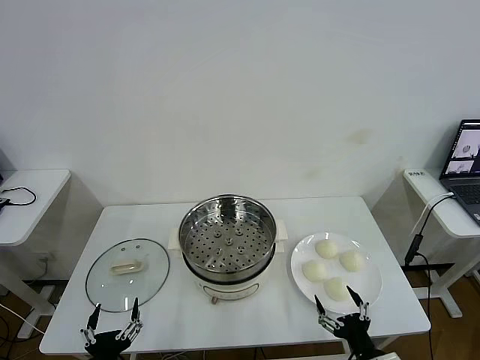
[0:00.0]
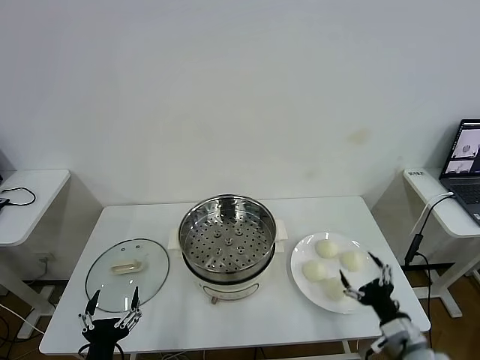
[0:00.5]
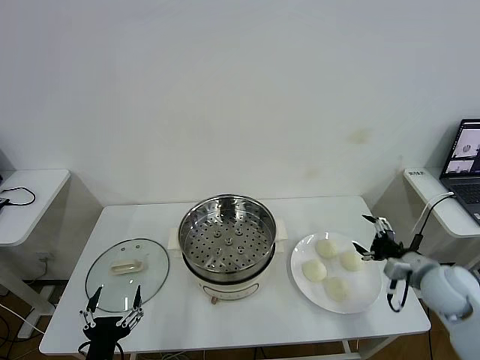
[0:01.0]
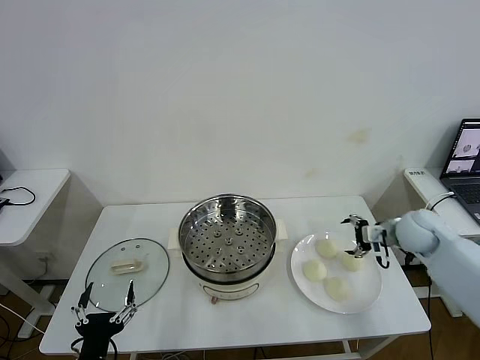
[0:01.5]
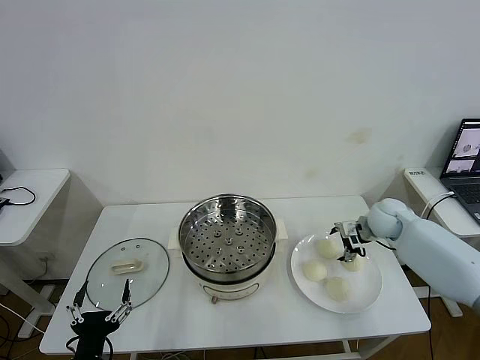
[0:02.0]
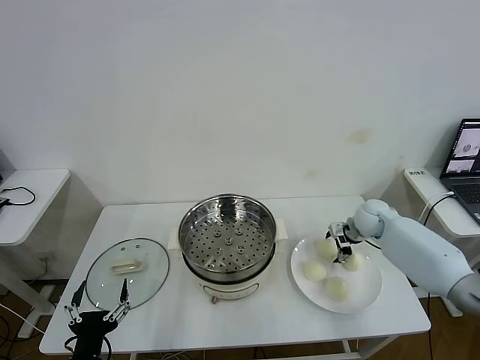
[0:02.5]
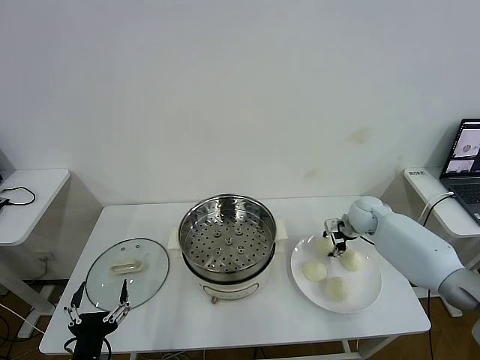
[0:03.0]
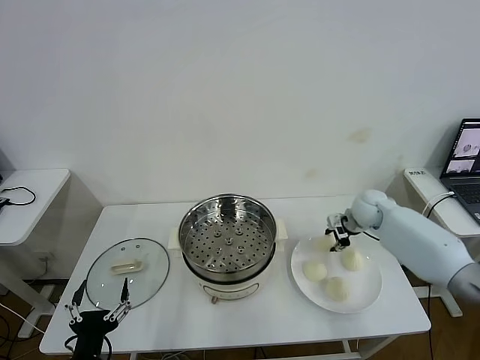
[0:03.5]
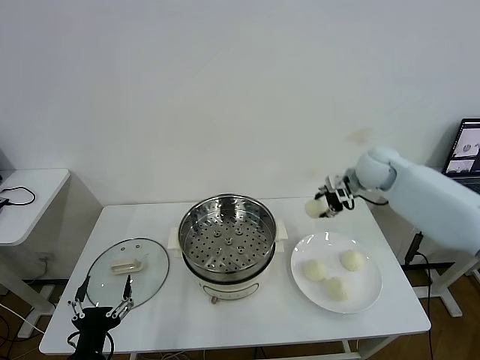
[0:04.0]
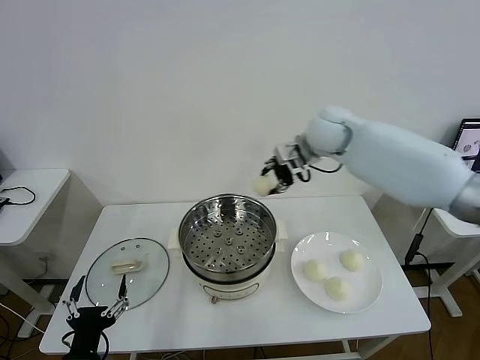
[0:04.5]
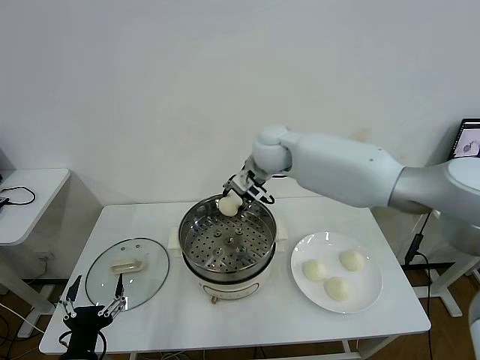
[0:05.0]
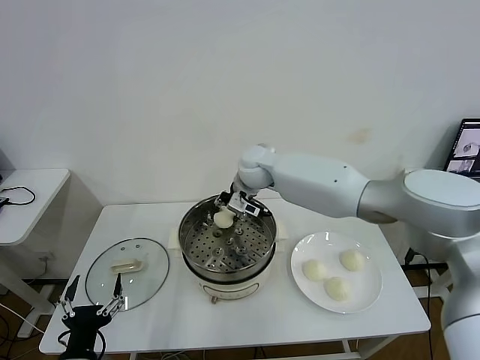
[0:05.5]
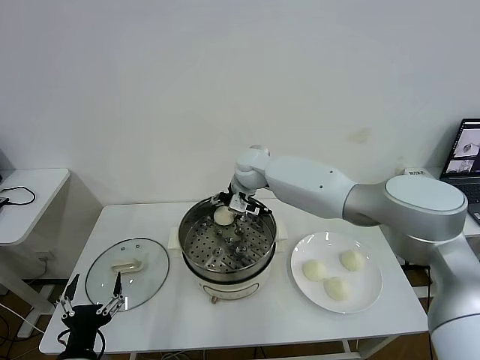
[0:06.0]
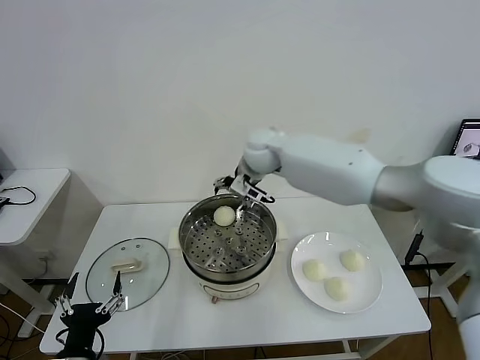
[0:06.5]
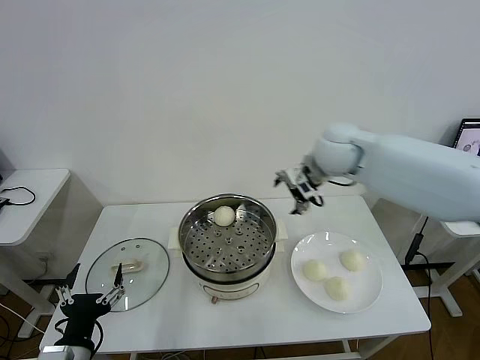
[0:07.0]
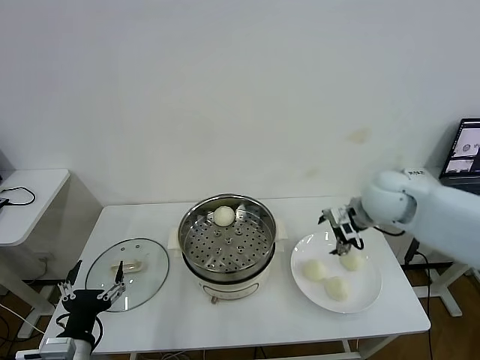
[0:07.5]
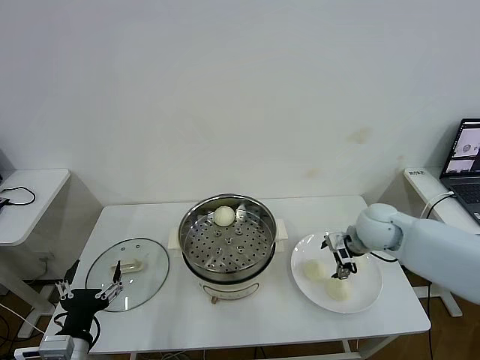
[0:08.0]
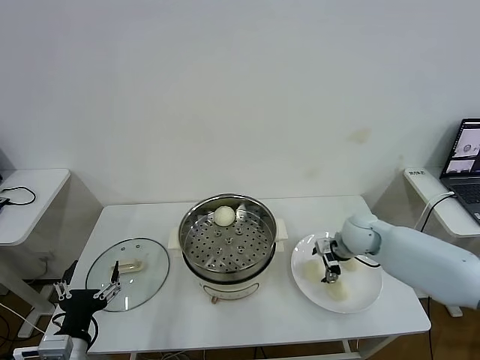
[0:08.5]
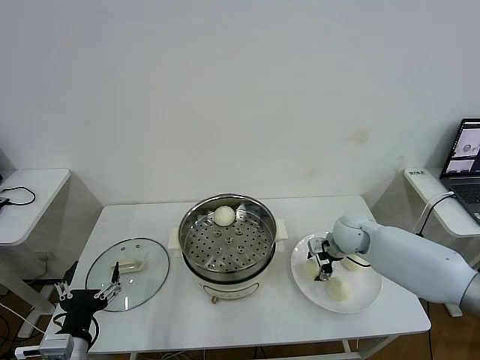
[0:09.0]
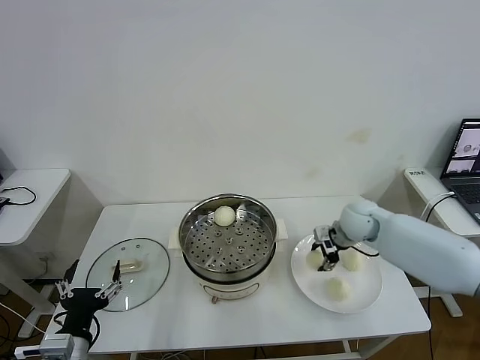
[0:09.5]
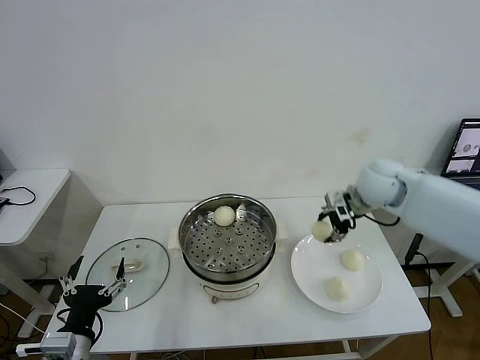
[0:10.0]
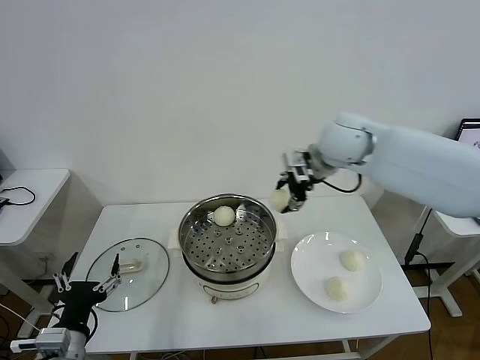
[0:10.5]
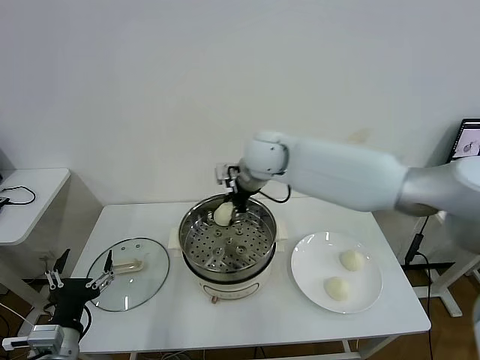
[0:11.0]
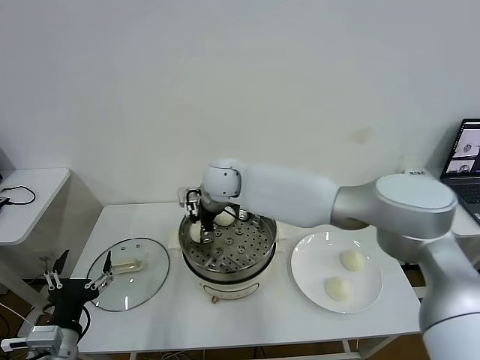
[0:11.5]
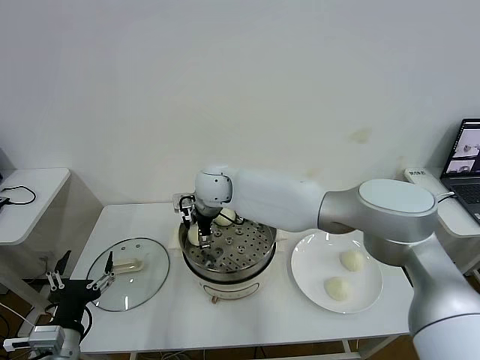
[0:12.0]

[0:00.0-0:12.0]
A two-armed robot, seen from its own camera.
Task of the whole recording: take steamed baozi put them in steamer then cover it.
Step, 0:00.0 to 0:02.5: Grasp the baozi in the plate with right gripper.
Step, 0:03.5 to 0:06.0: Place the baozi on the steamer with right gripper.
Step, 0:06.5 to 0:09.0: Grasp the baozi in the plate with right gripper.
Step, 0:09.5 to 0:12.0: Place the baozi on the steamer with right gripper.
0:02.0 to 0:04.0: The right gripper shifts roughly 15 cm upward and to the left, and closes its fingers.
0:04.0 to 0:06.0: The right gripper travels to the left by some 30 cm, and opens.
0:06.0 to 0:08.0: The right gripper travels to the right and backward by some 30 cm.
0:08.0 to 0:10.0: The right gripper shifts roughly 10 cm upward, and closes up.
0:10.0 to 0:12.0: The right gripper heads to the left, covering approximately 35 cm, and opens up.

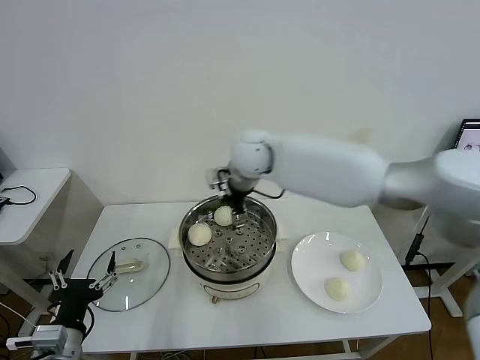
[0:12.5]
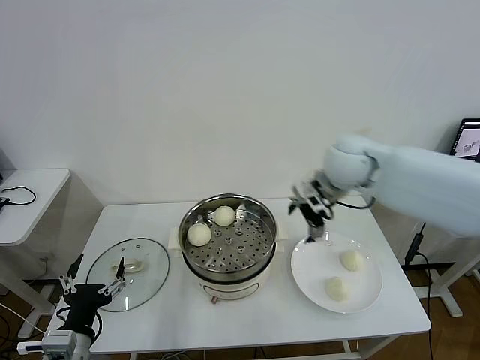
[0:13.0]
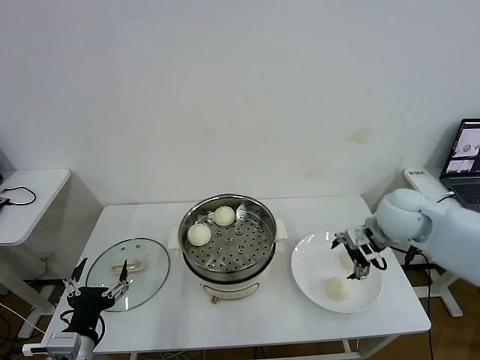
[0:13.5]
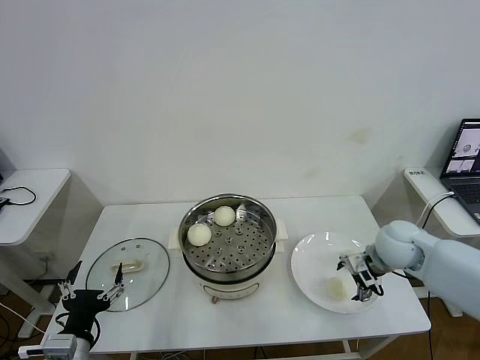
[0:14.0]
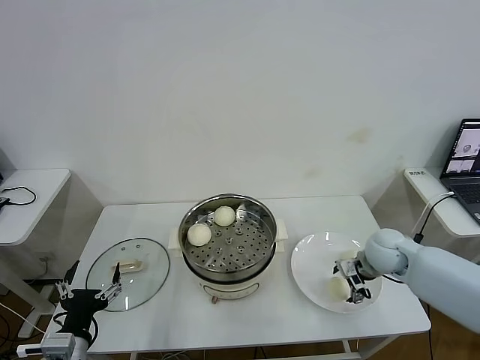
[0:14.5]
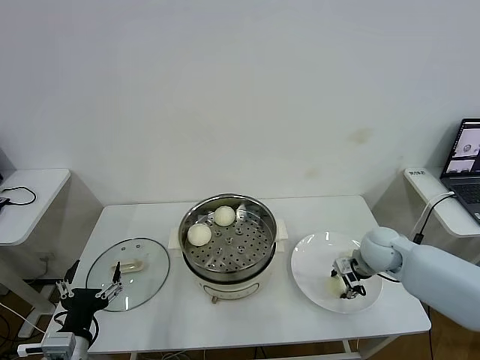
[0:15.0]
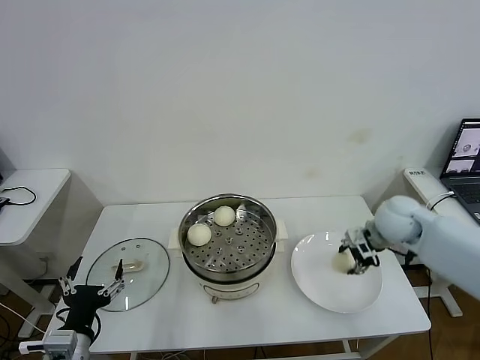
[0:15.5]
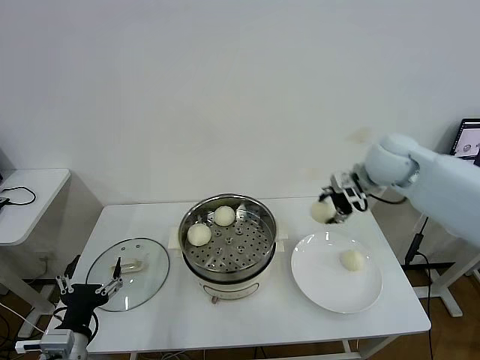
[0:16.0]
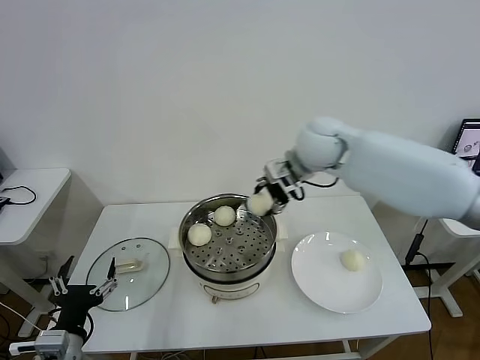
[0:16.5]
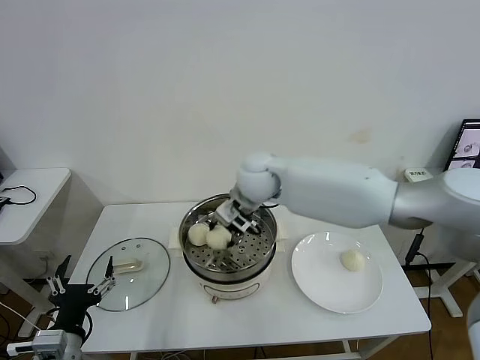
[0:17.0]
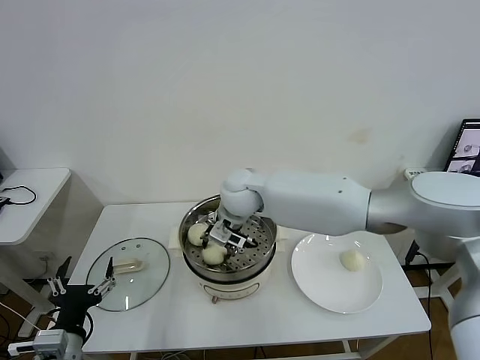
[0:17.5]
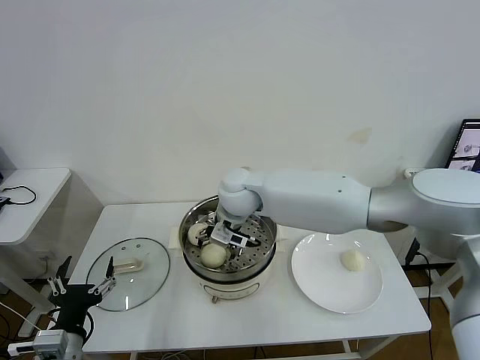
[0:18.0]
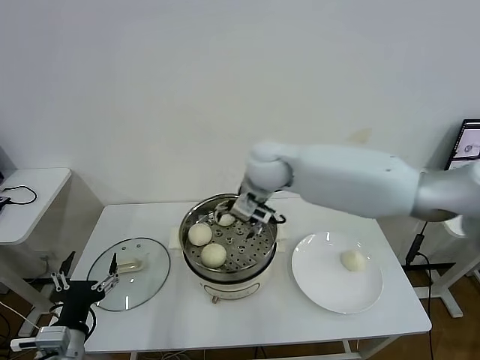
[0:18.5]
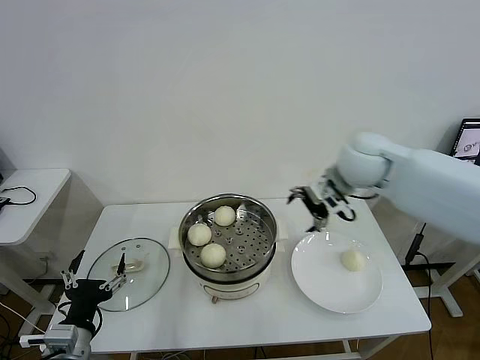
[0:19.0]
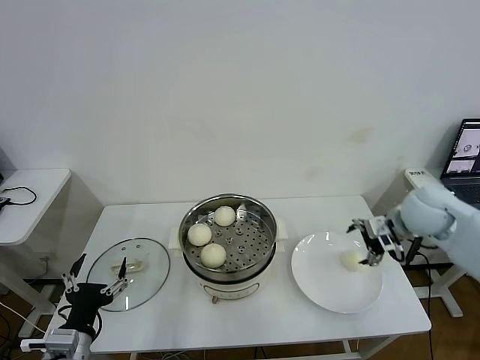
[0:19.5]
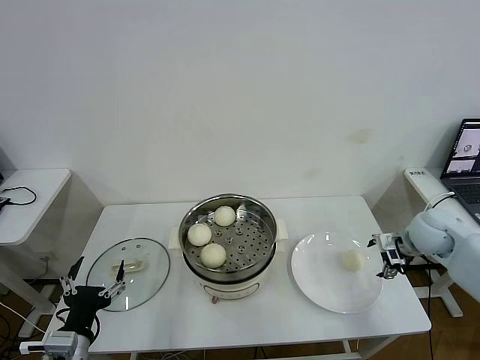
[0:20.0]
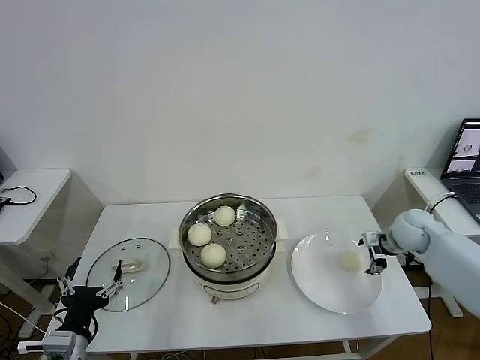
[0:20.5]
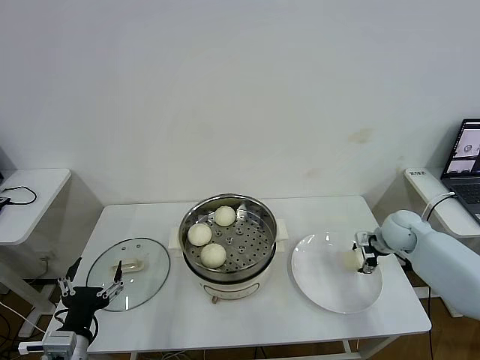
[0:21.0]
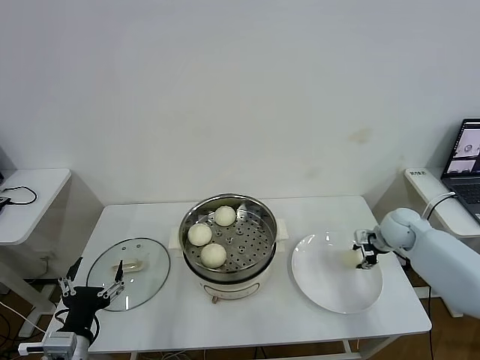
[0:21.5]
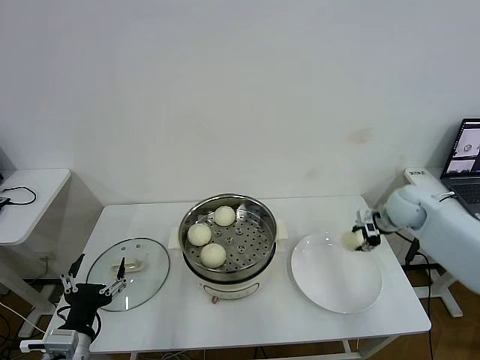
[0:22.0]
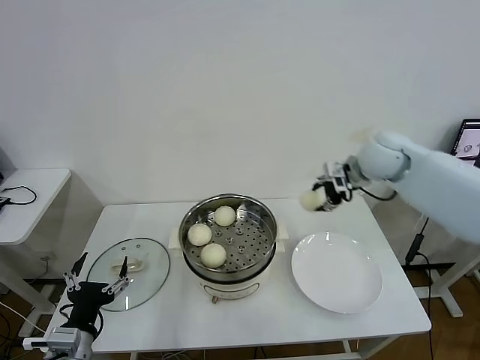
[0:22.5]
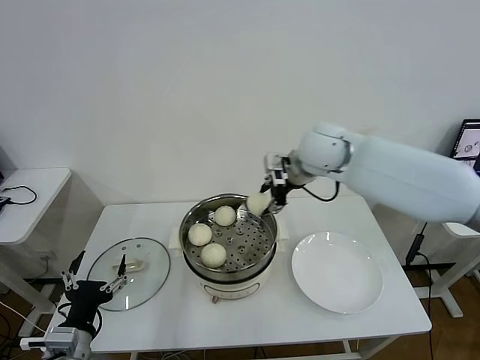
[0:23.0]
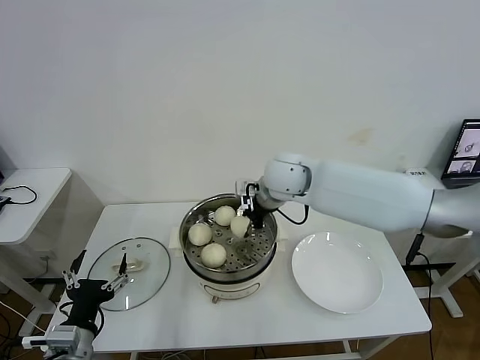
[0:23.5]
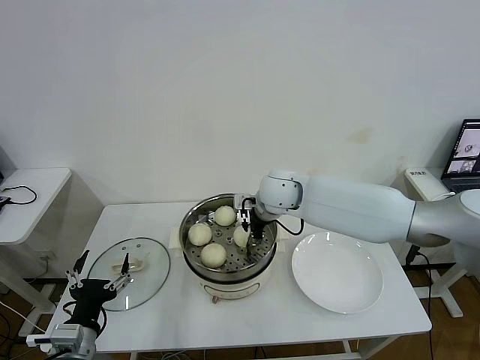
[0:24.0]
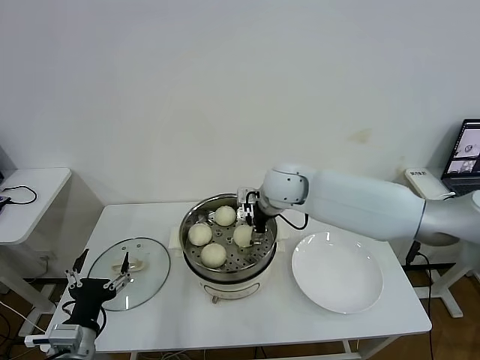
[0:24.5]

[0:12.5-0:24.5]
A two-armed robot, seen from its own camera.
Task of the whole recording: take steamed baozi put them in steamer then cover it.
Step, 0:12.5 to 0:14.5: Grasp the baozi in the plate with right gripper.
Step, 0:15.0 to 0:17.5: Place the baozi on the steamer with right gripper.
Step, 0:18.5 to 0:21.0: Grasp the baozi in the plate with right gripper.
Step, 0:21.5 to 0:24.0: Place the baozi on the steamer with right gripper.
0:12.5 to 0:14.5: The right gripper is displaced to the right and downward by about 35 cm.
0:14.5 to 0:16.5: The right gripper travels upward, to the left and forward by about 30 cm, and closes up.
0:16.5 to 0:18.5: The right gripper shifts roughly 10 cm to the left, and opens up.
0:18.5 to 0:20.5: The right gripper heads to the right and downward, covering roughly 40 cm.
0:20.5 to 0:22.5: The right gripper travels upward and to the left by roughly 25 cm, and closes.
0:22.5 to 0:24.5: The right gripper goes about 20 cm to the left, and opens.

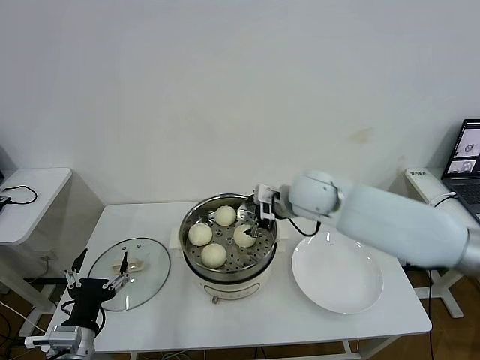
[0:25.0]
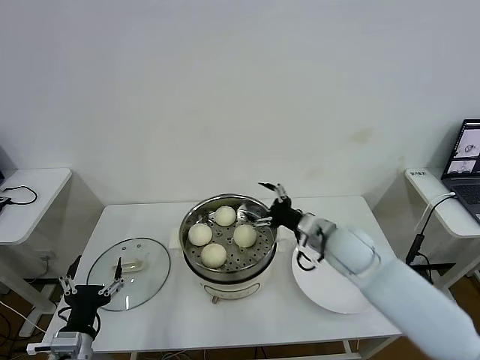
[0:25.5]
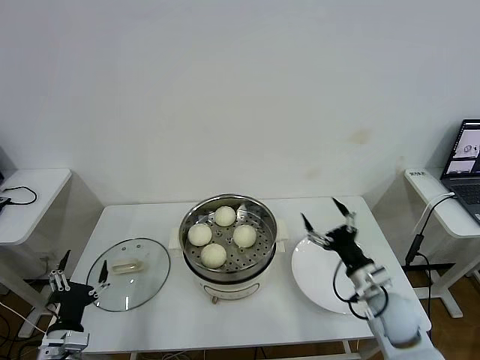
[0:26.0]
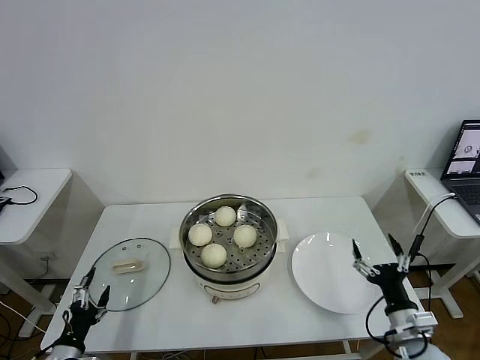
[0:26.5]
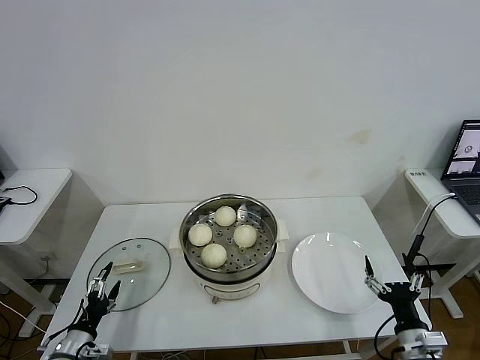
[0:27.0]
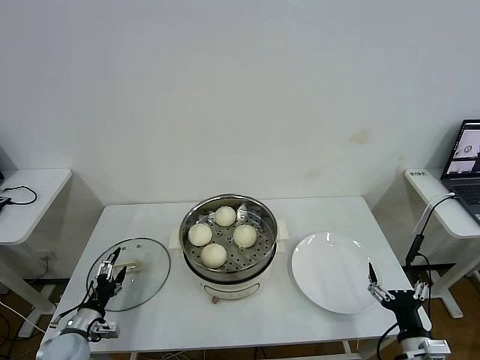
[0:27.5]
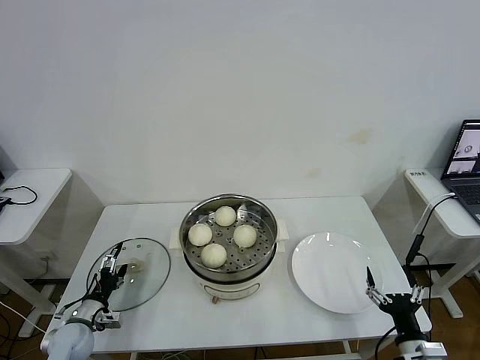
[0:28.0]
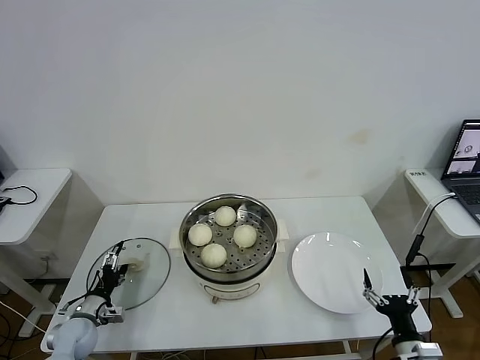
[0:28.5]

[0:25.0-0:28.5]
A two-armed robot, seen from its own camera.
Task of the whole recording: take steamed baozi put them in steamer then cover it.
0:25.0 to 0:27.0: The right gripper heads backward, downward and to the right, covering roughly 40 cm, while the left gripper moves downward and to the left, approximately 15 cm.
0:27.0 to 0:28.5: The left gripper heads forward, covering approximately 10 cm.
